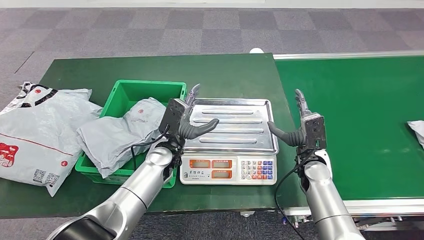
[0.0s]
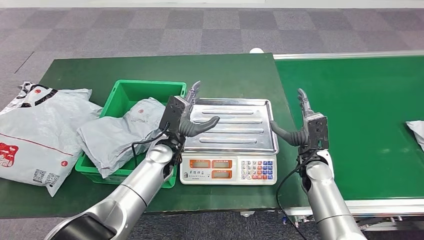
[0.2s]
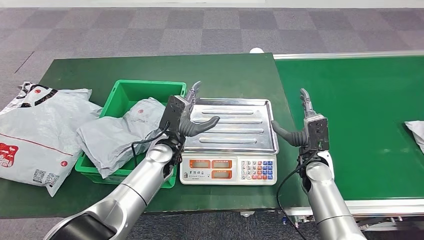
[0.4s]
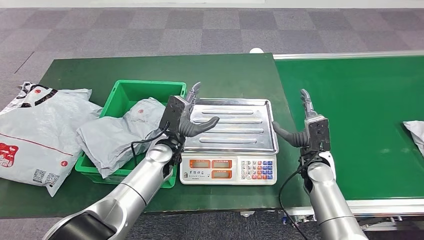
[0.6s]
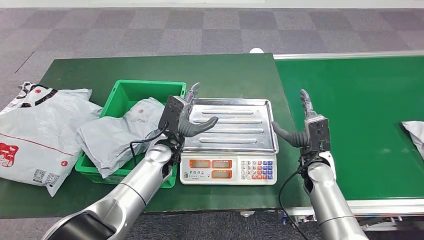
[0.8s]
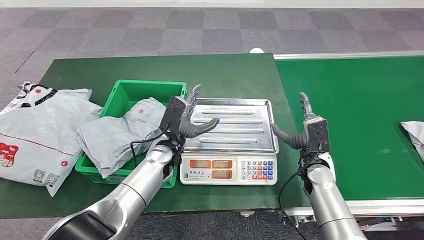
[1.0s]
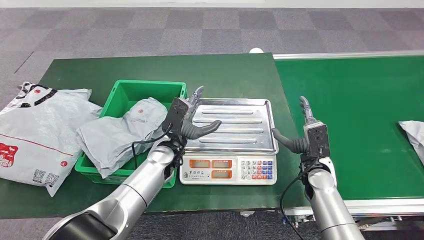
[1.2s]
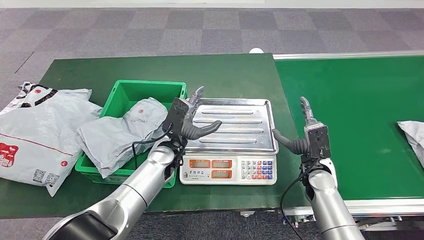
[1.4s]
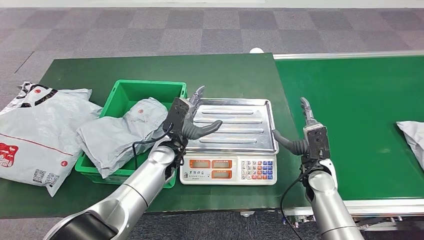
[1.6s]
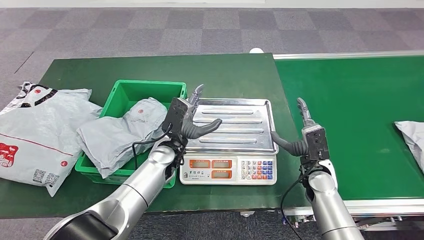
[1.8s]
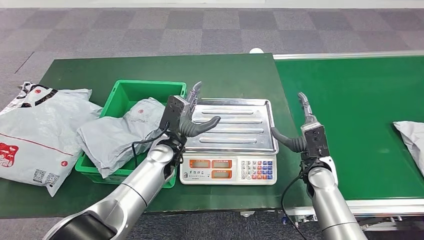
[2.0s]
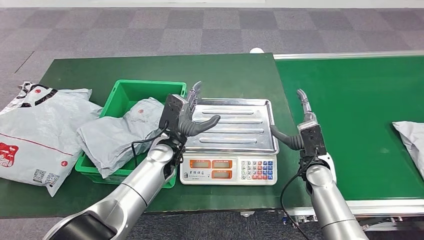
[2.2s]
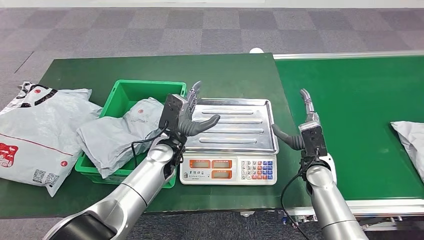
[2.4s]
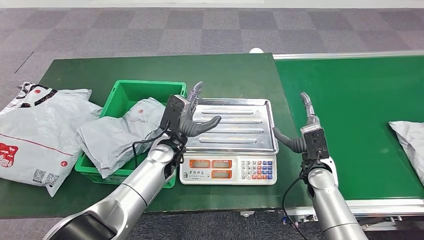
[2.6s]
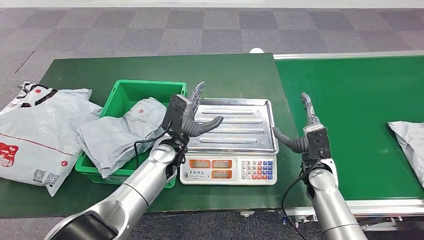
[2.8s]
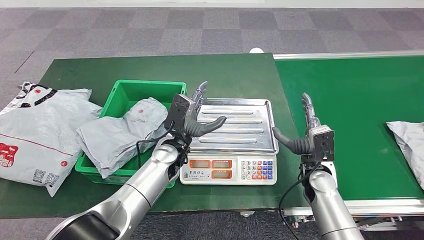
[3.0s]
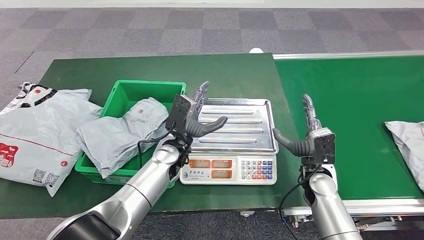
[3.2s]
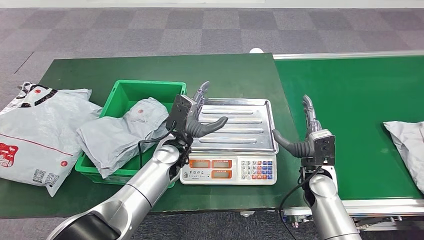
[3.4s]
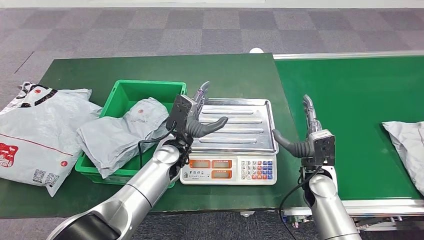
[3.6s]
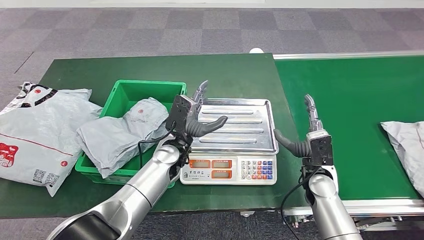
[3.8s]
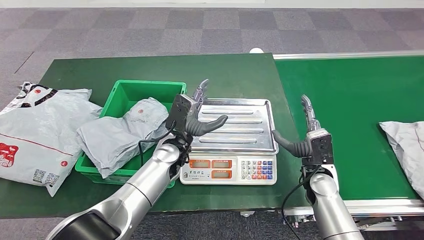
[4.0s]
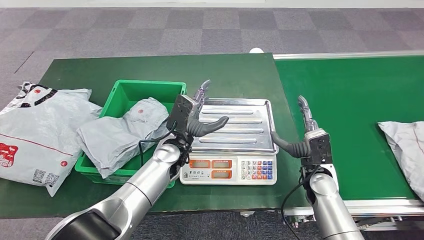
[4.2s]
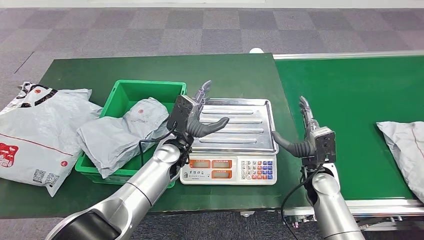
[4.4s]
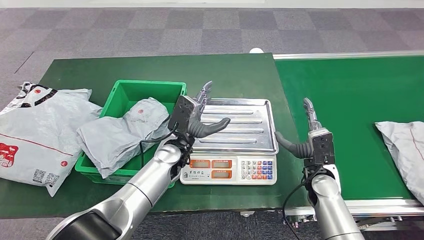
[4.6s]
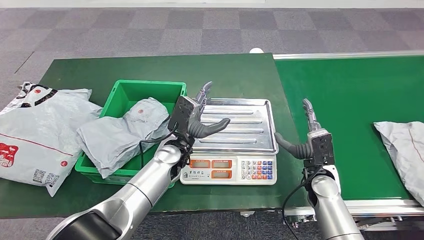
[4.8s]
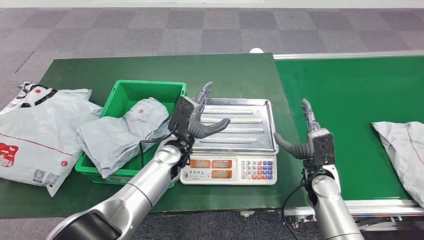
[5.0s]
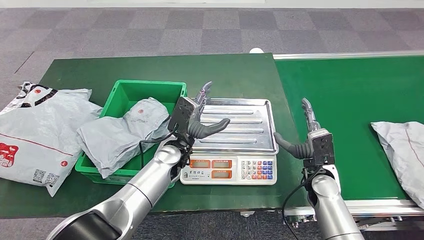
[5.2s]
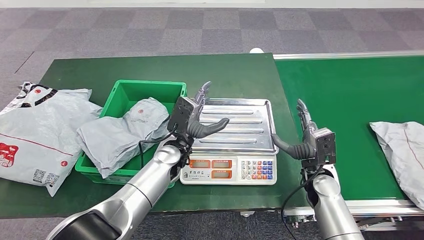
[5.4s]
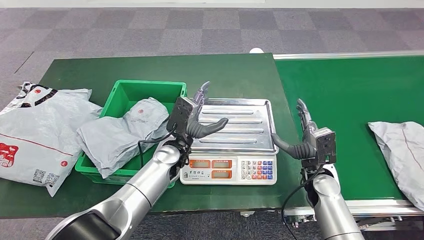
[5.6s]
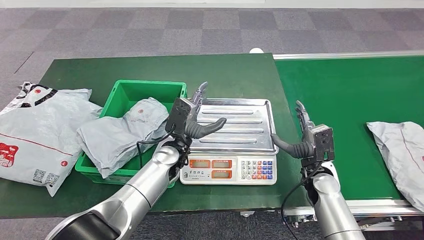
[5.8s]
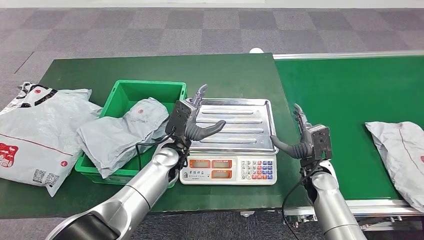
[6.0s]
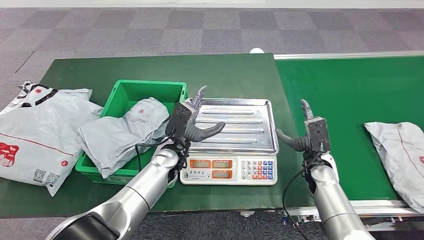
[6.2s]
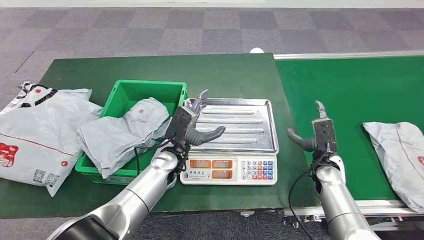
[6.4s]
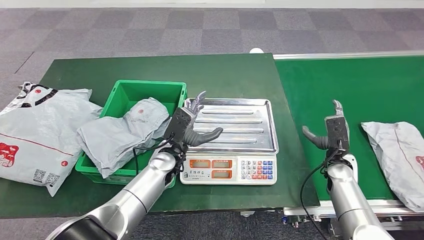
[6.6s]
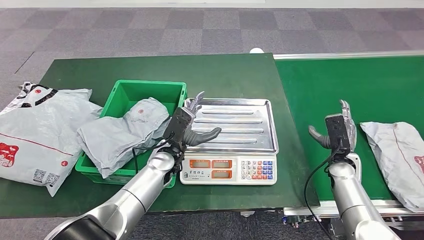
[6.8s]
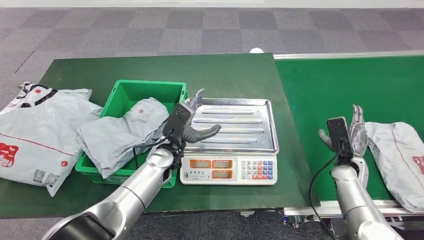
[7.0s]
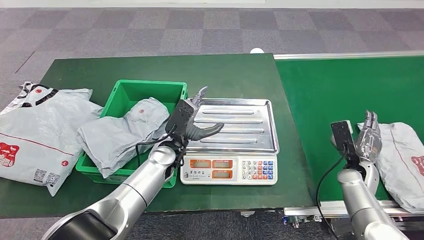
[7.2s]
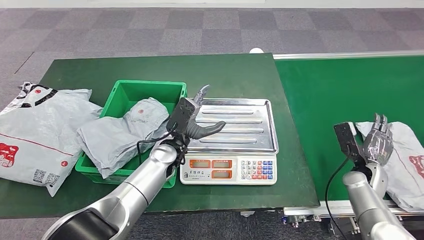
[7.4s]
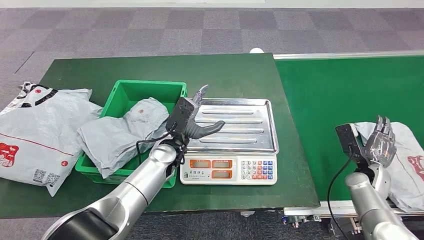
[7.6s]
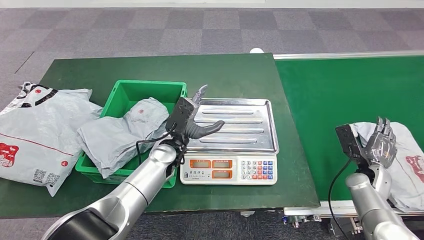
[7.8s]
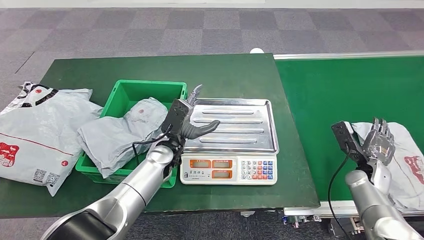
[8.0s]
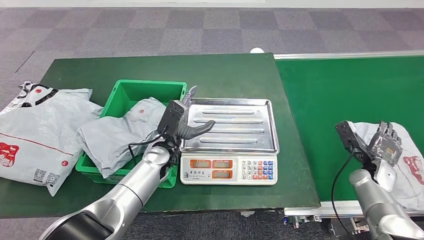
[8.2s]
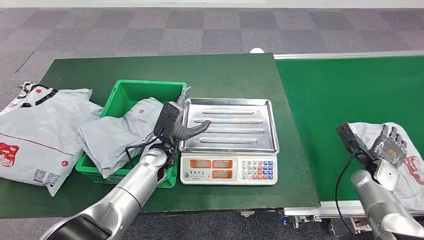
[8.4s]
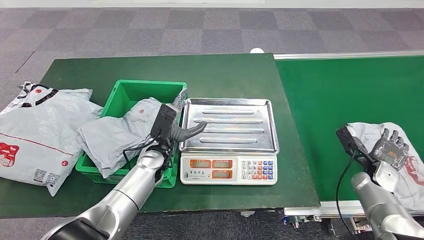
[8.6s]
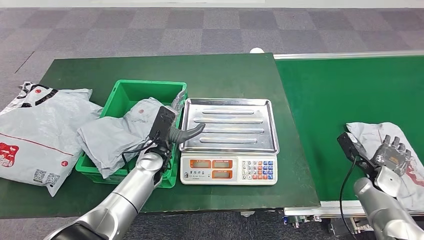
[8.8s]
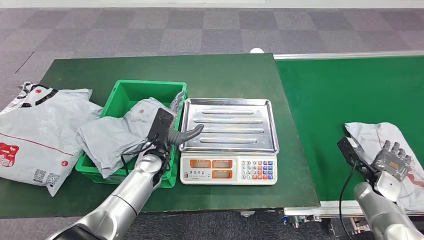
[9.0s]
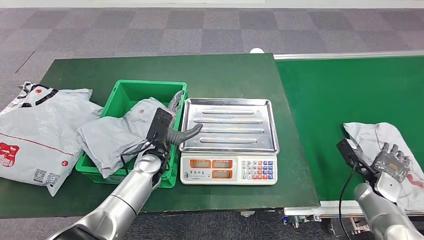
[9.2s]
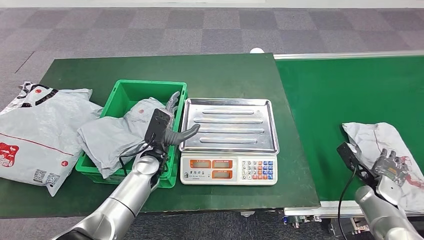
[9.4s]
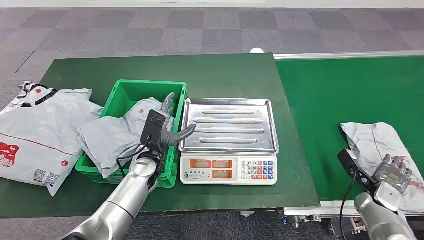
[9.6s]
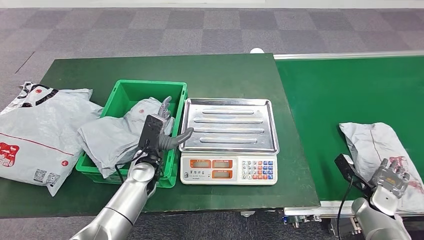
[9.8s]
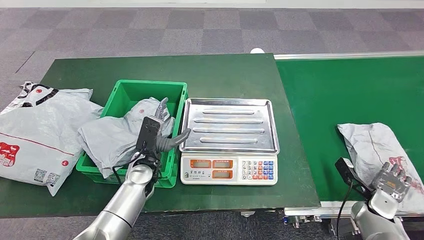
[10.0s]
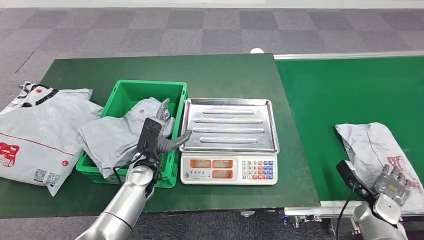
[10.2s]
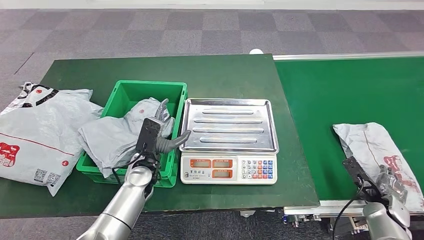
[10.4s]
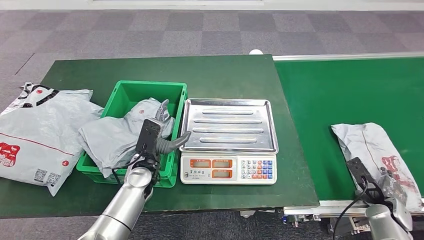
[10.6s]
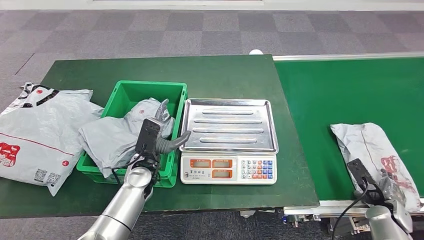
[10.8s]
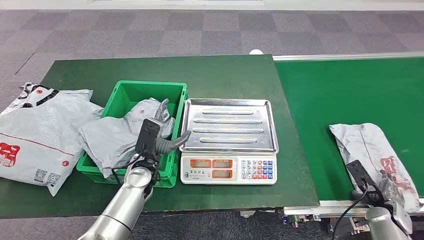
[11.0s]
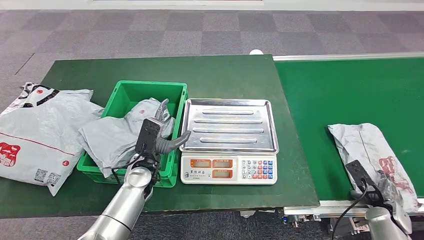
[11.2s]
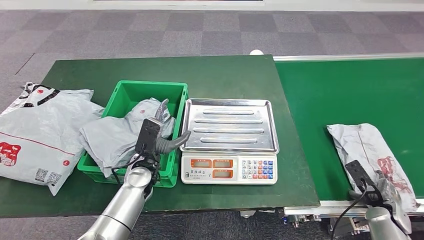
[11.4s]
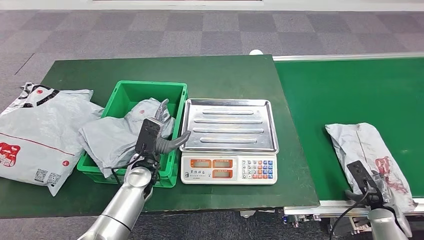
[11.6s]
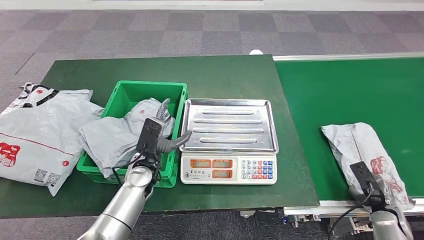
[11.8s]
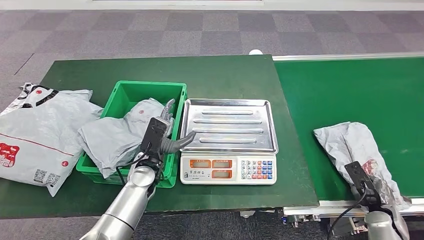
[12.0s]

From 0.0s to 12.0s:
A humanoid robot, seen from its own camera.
From 0.0s to 6.0s: There are only small adjustments of the hands.
From 6.0s to 7.6s: The right hand heads to the right, covering some 15 cm.
From 7.6s to 9.0s: The left hand moves approximately 5 cm.
From 9.0s to 10.4s: The right hand heads backward, covering some 5 cm.

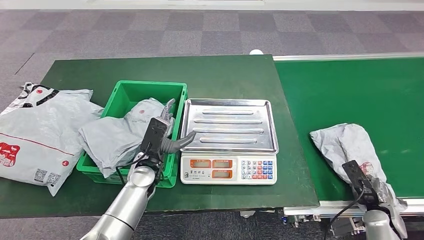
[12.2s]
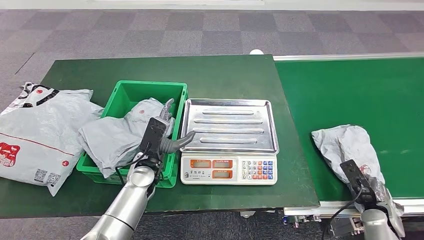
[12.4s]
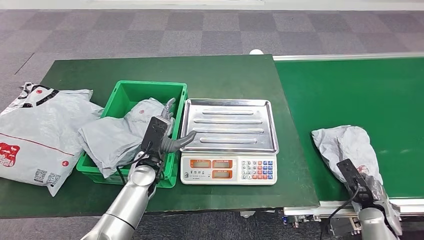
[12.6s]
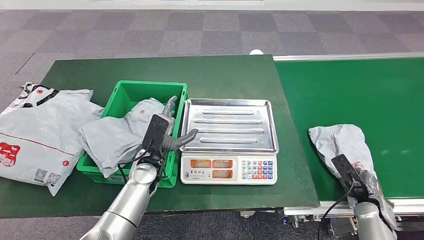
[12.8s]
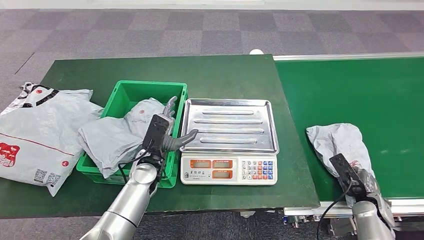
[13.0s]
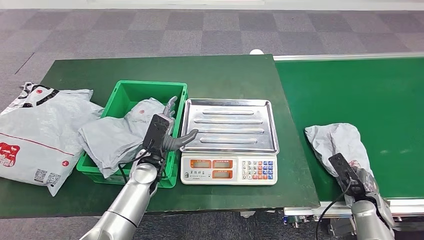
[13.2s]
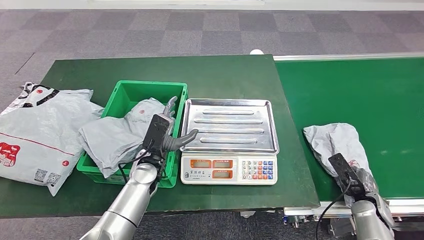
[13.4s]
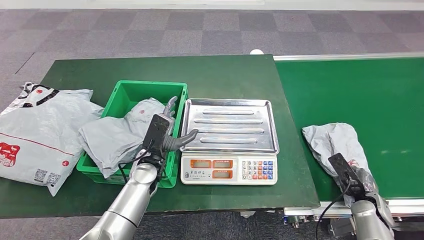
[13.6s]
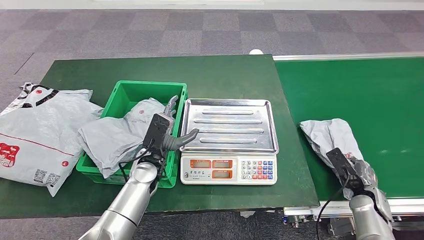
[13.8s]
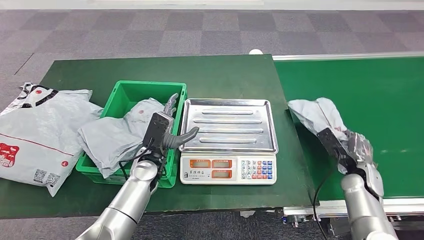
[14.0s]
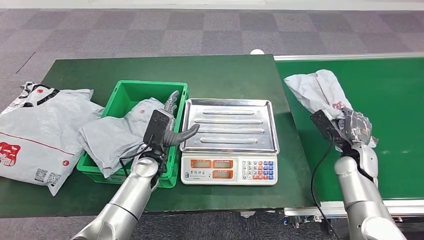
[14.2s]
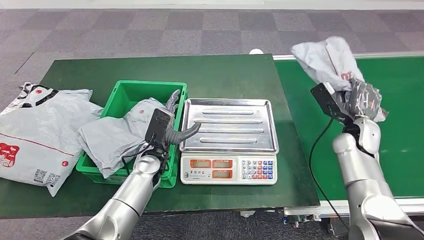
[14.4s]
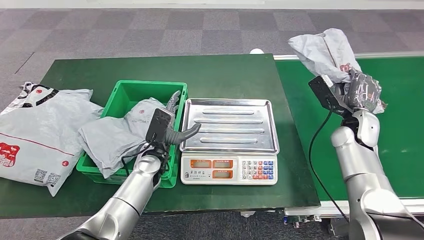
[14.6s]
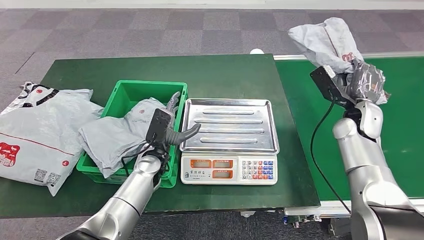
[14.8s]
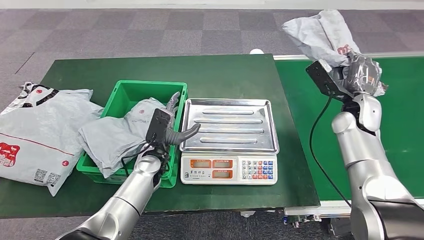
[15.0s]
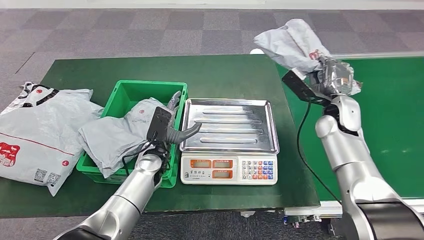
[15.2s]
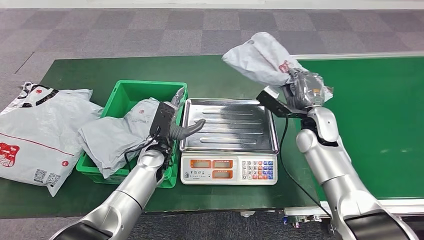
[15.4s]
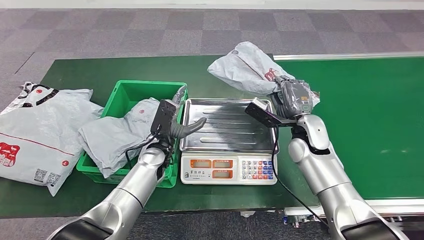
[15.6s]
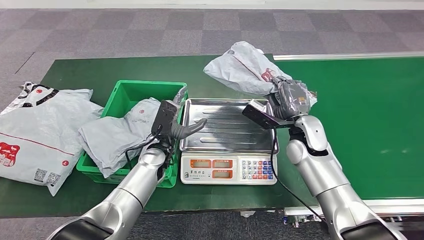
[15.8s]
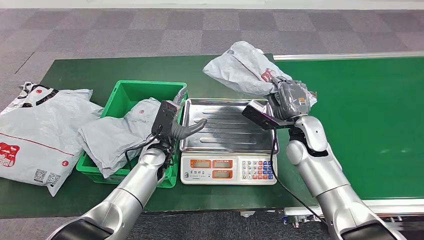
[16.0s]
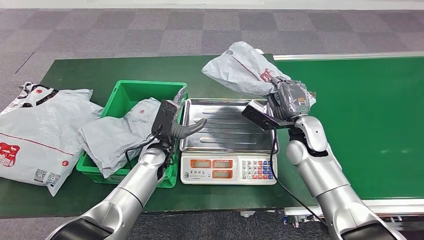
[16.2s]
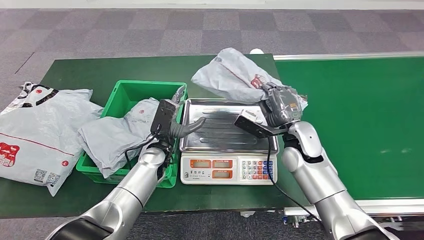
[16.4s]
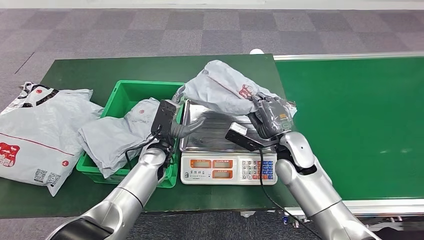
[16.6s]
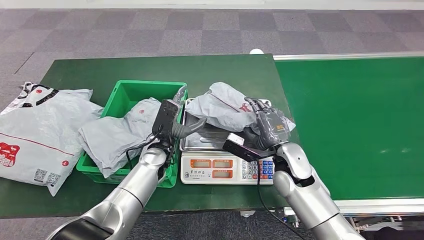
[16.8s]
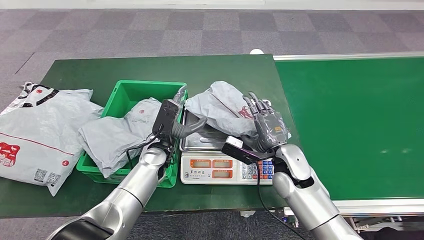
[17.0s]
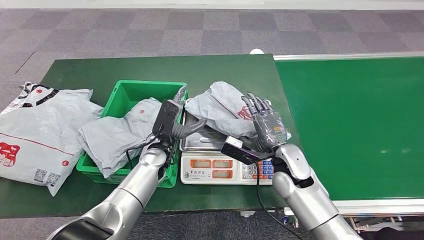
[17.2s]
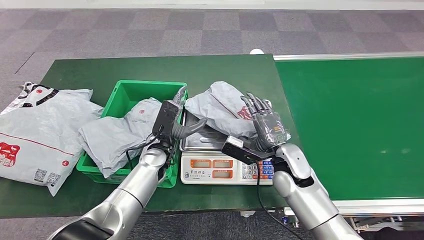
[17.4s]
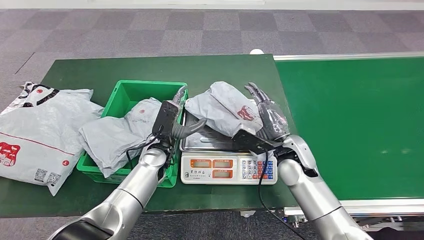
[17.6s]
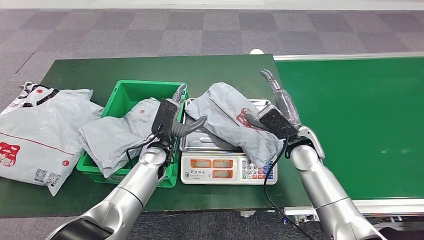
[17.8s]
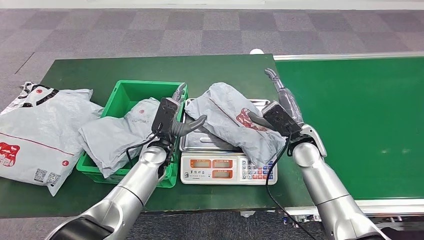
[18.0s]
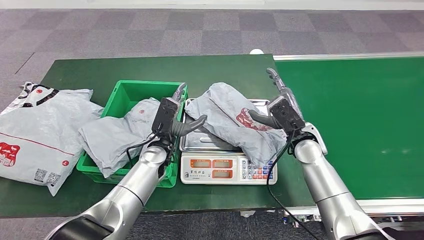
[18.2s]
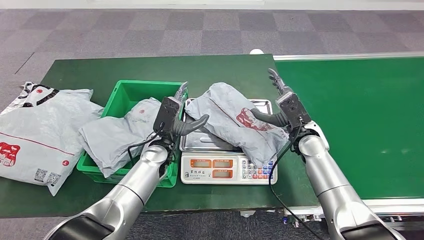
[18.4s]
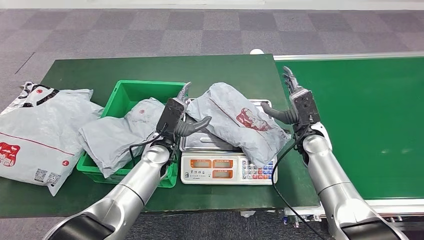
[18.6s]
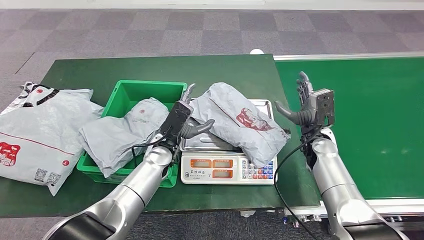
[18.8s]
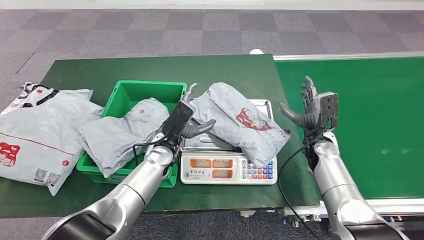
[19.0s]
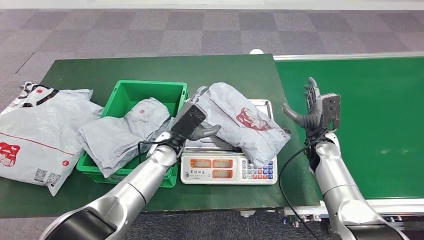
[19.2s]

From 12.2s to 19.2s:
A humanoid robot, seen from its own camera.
Step, from 12.2s to 15.4s: Pick up the parcel from the conveyor belt.
Step, from 15.8s to 19.0s: Place the parcel onto the inbound machine.
From 12.2s to 13.6s: There are only small adjustments of the hands.
From 17.8s to 19.2s: The right hand goes roughly 10 cm to the right and downward.
